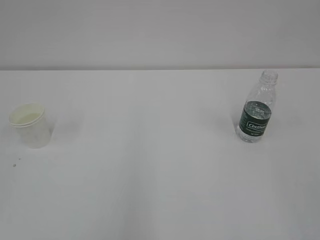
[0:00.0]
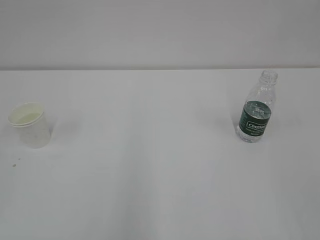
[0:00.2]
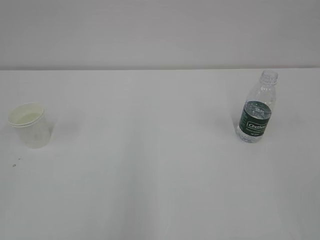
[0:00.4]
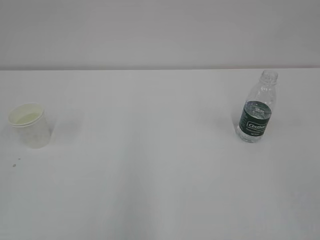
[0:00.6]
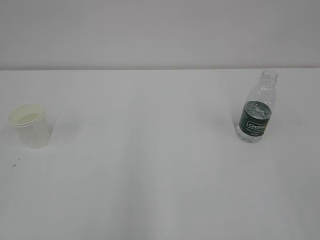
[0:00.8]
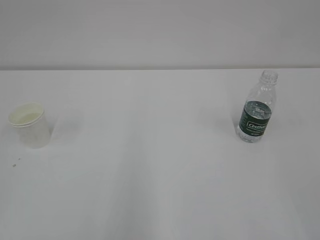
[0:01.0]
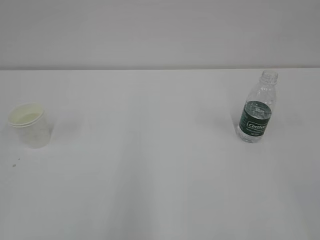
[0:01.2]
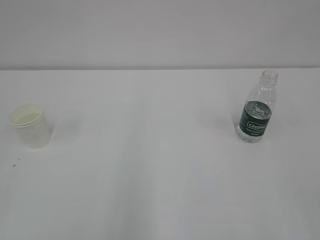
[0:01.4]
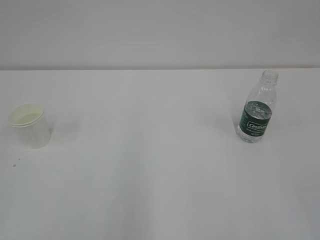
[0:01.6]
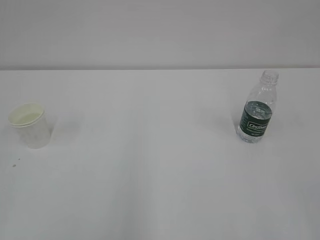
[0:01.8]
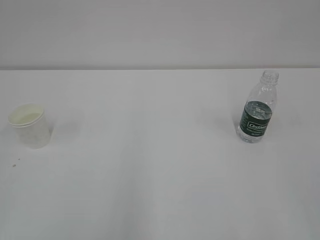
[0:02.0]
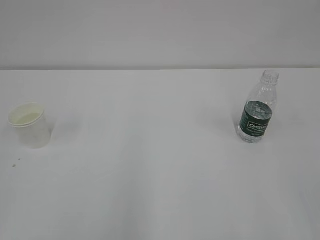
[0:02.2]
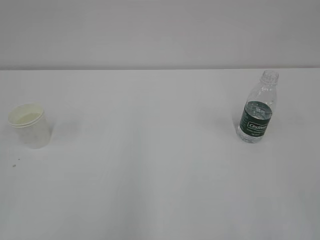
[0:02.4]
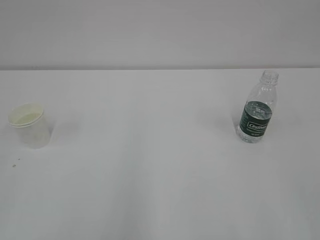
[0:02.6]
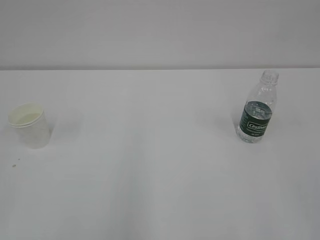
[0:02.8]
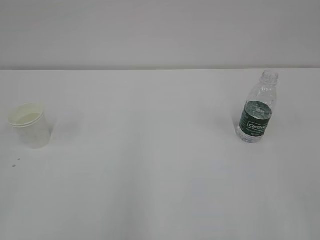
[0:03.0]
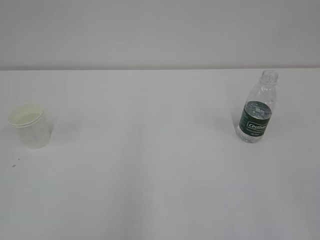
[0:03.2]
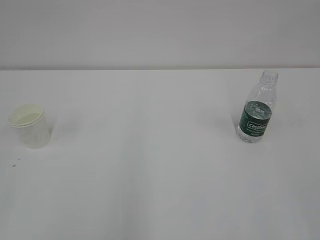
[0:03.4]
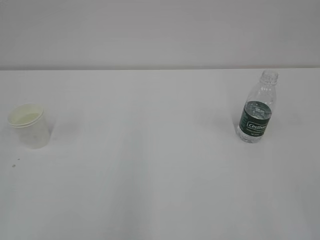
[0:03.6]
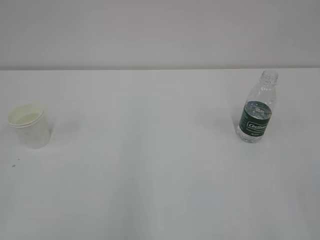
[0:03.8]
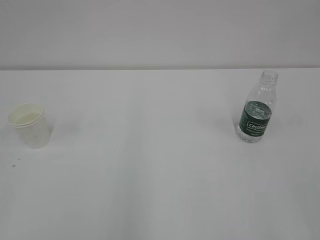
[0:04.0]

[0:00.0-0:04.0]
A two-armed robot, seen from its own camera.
0:02.6 to 0:04.0: Both grippers stay about where they are.
